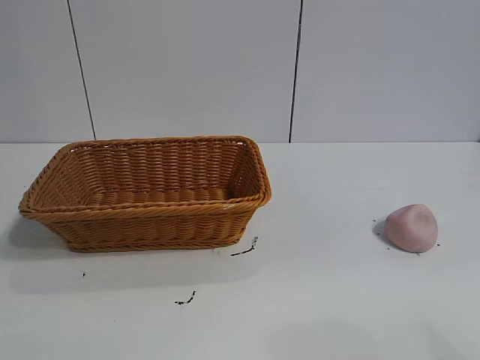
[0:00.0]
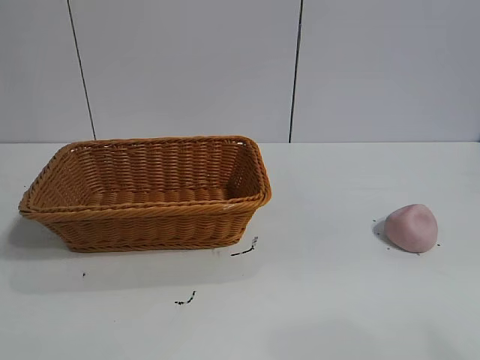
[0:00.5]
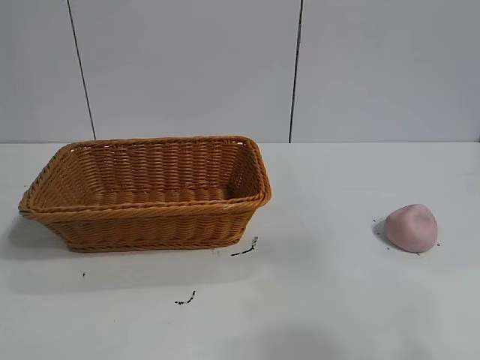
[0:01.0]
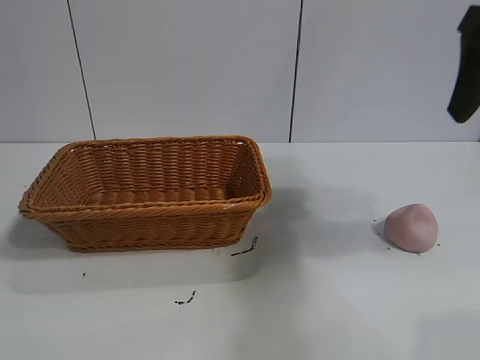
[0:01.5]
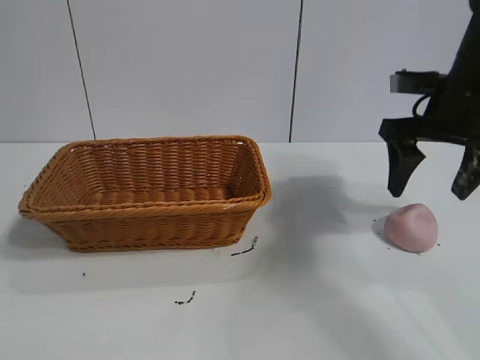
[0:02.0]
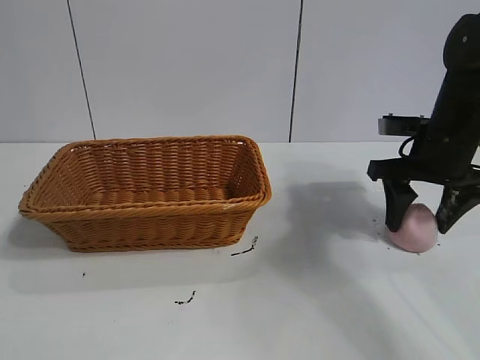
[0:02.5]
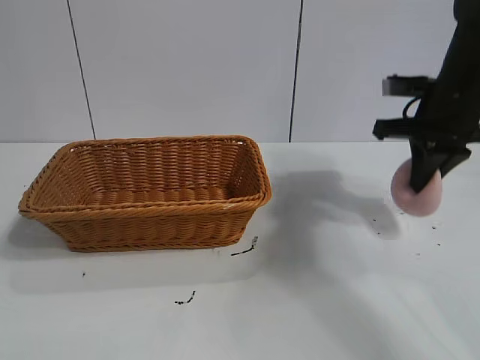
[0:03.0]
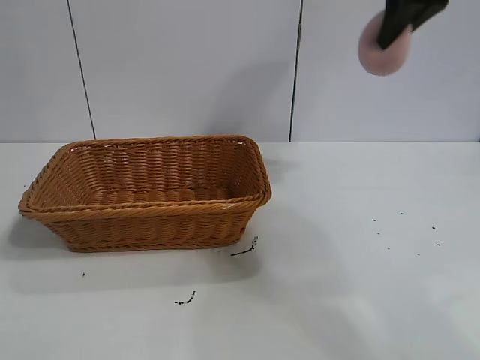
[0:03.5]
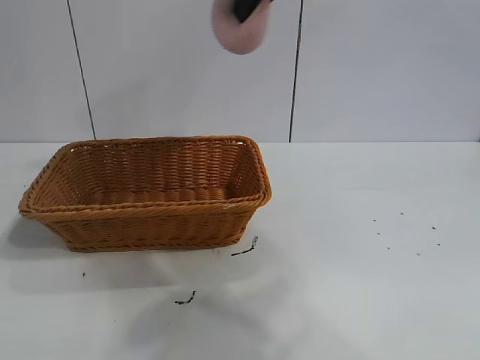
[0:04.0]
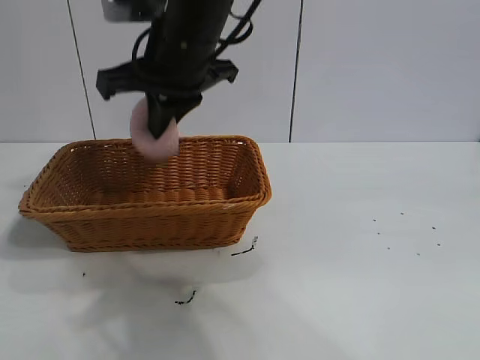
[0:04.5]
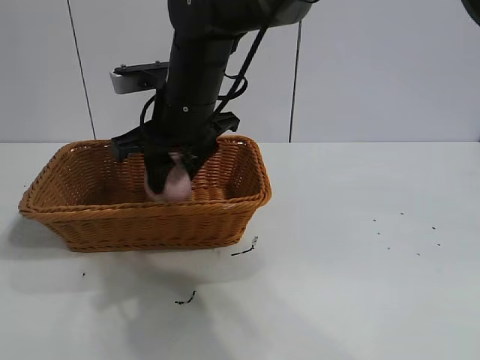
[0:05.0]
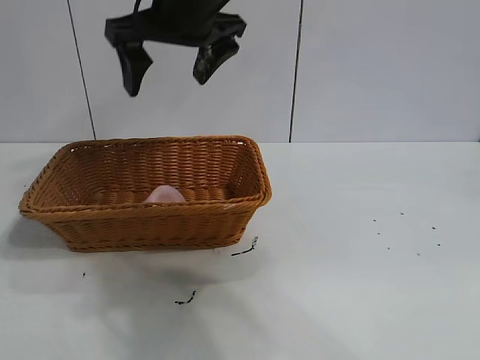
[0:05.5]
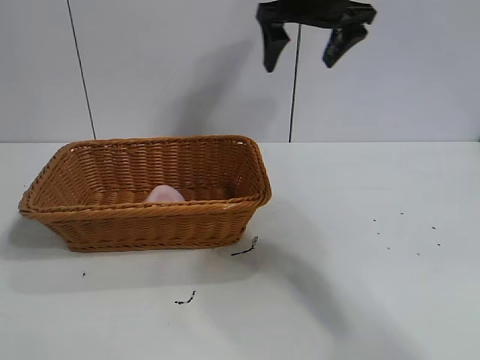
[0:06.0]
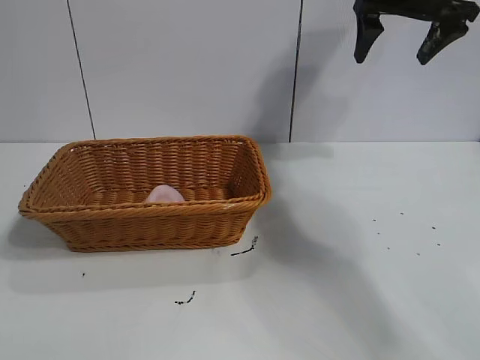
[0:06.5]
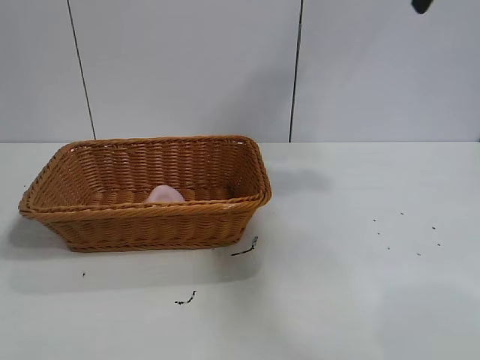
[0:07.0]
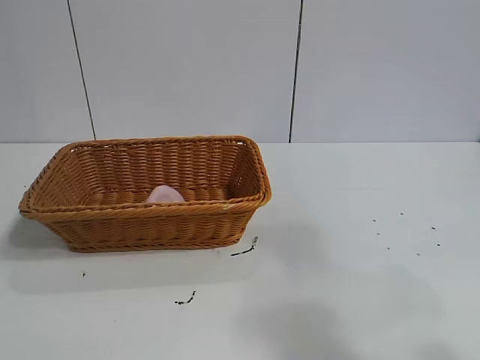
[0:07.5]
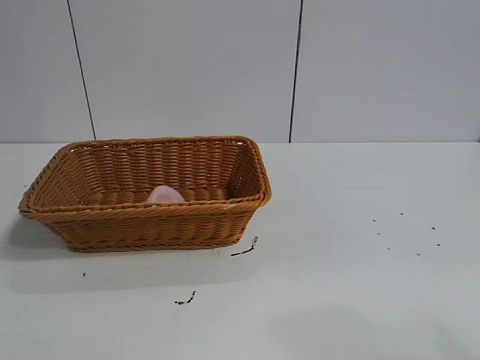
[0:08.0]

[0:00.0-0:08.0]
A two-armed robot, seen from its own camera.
Task of the whole recording: pick up the peach and put it into the basket.
Step, 0:01.0 to 0:02.5: Grasp the peach with right gripper.
Step, 0:03.0 to 0:05.5: Place the peach in the basket with right gripper.

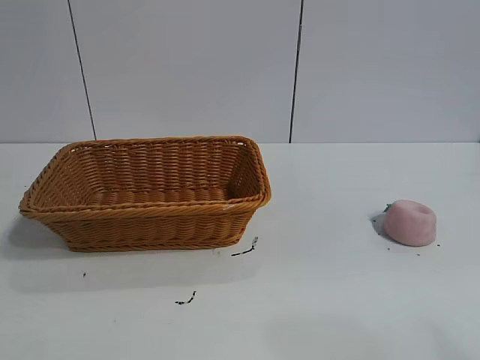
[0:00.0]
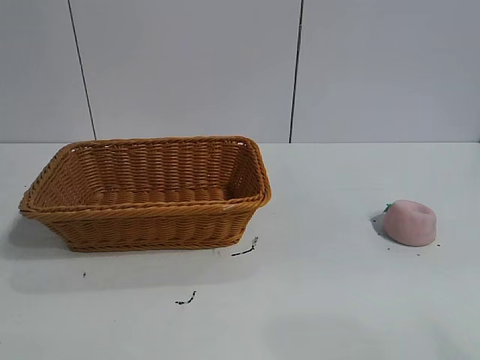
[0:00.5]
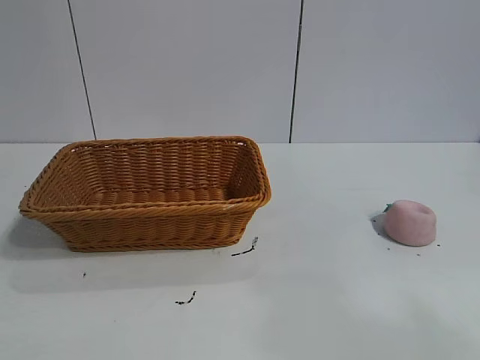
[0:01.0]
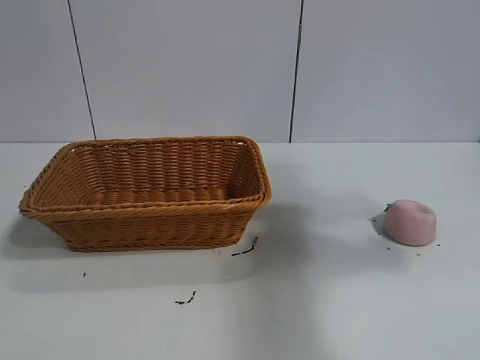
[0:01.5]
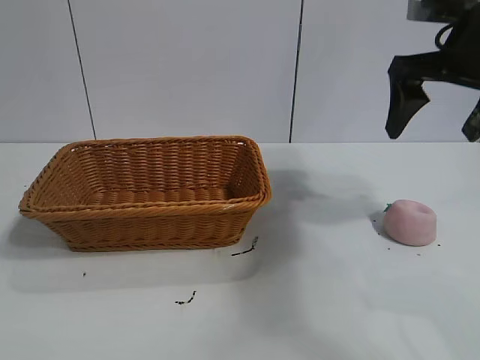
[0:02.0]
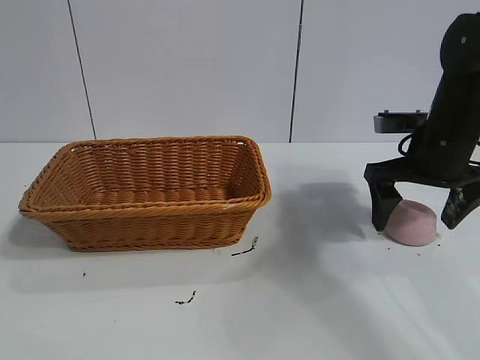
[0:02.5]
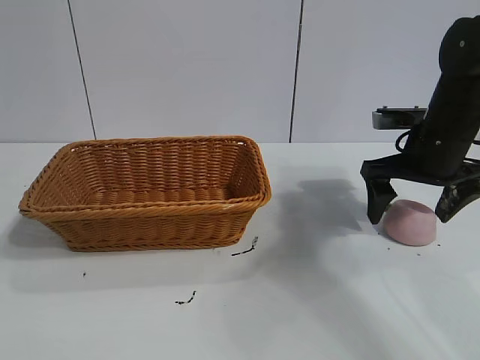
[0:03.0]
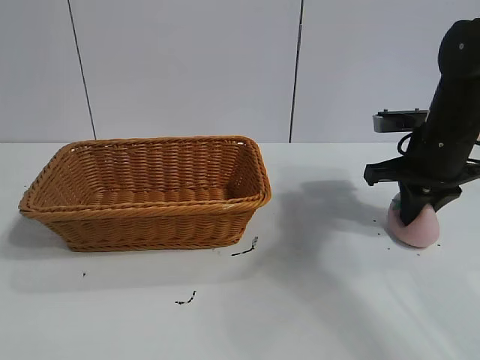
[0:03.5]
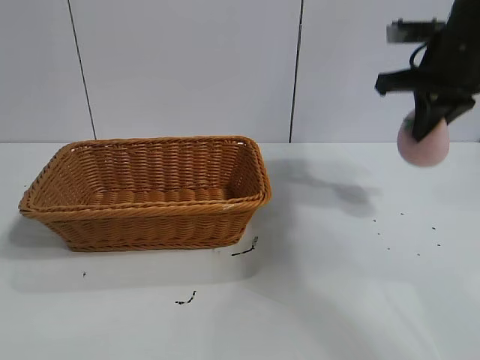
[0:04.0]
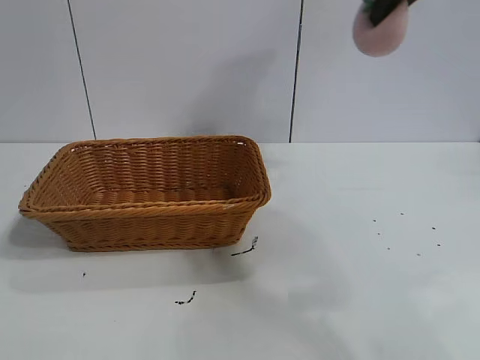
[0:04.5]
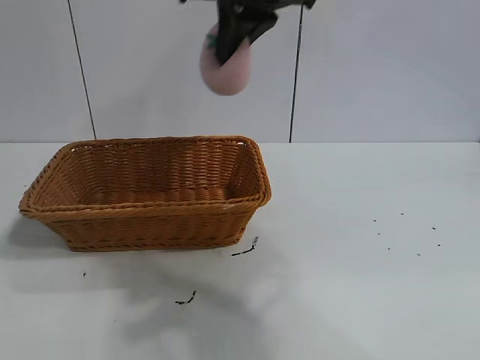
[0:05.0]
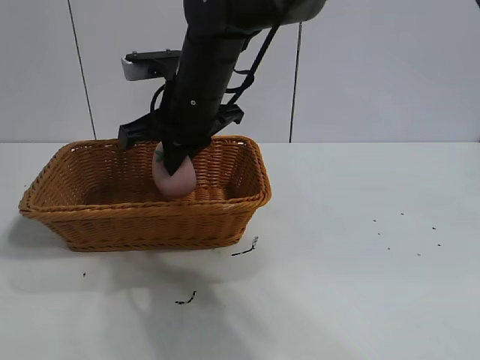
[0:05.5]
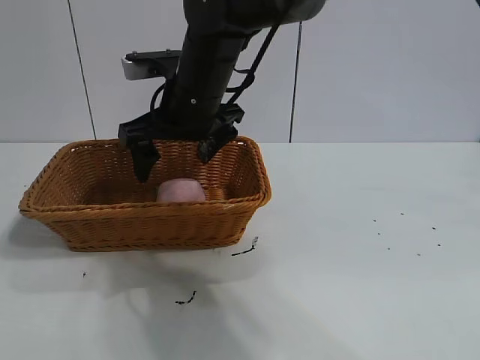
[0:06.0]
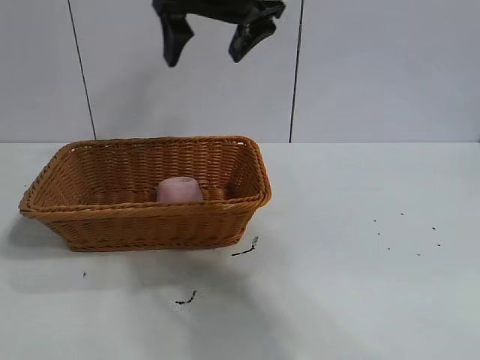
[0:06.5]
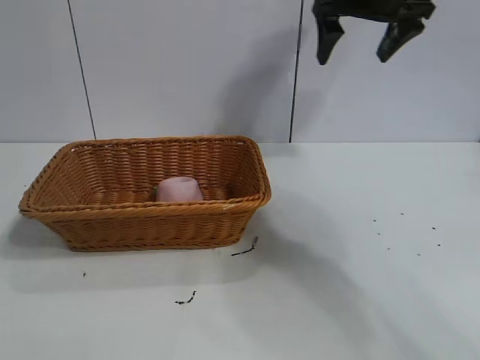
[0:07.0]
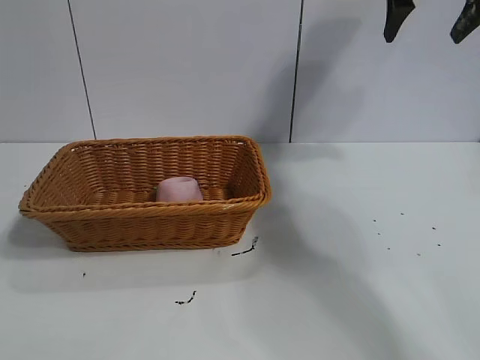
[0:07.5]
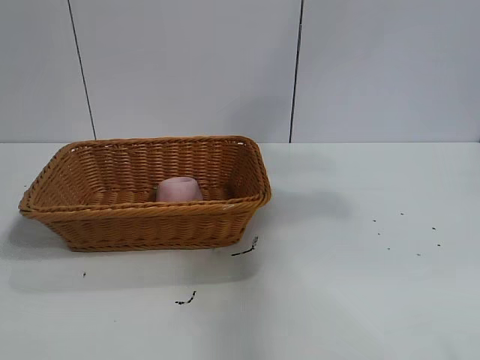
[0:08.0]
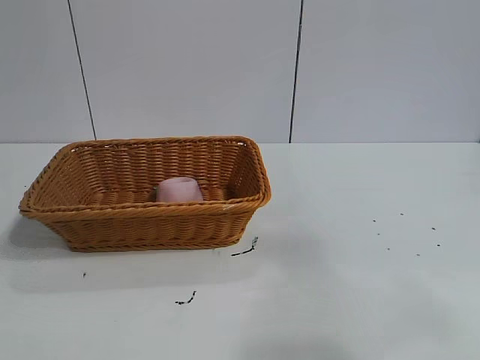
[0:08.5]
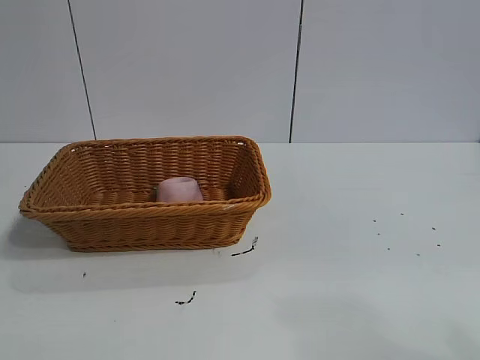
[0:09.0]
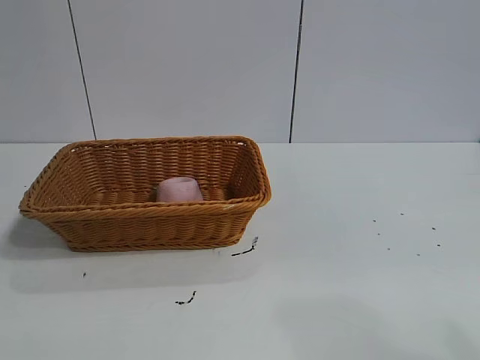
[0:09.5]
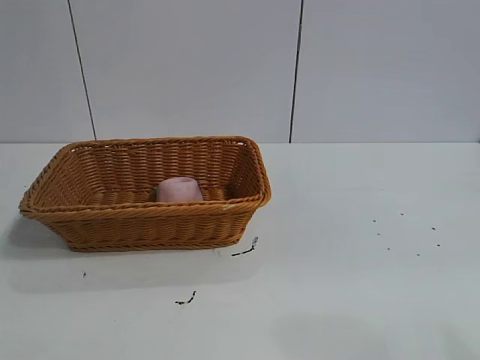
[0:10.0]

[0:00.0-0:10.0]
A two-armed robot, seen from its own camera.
Task of the whole recording: pick up the peach and put it into the basket.
Step, 0:01.0 to 0:03.5: Grasp the peach with right gripper.
Step, 0:04.0 to 0:06.0: Place the peach in the basket with right gripper.

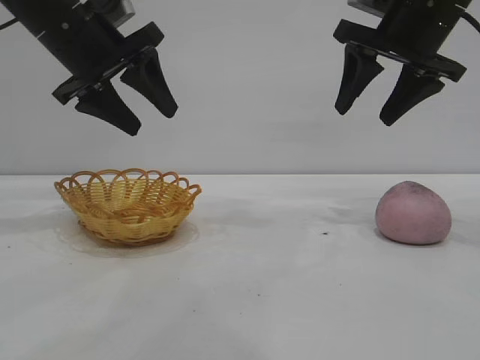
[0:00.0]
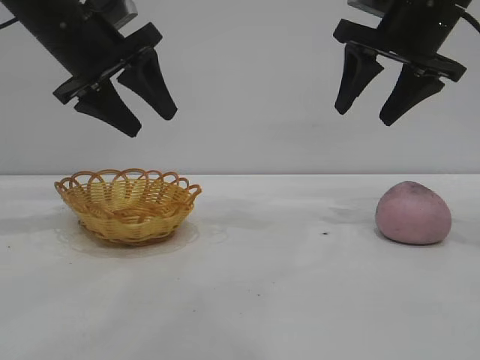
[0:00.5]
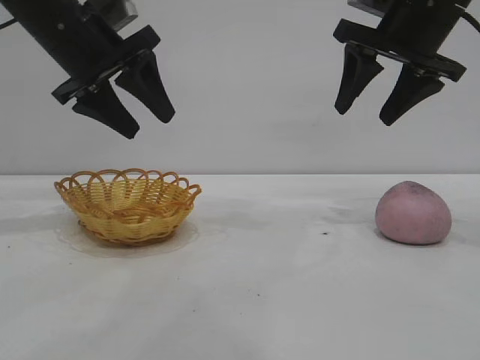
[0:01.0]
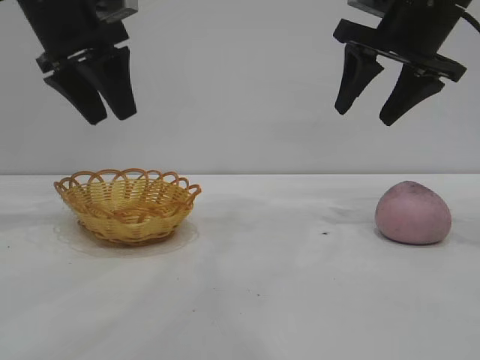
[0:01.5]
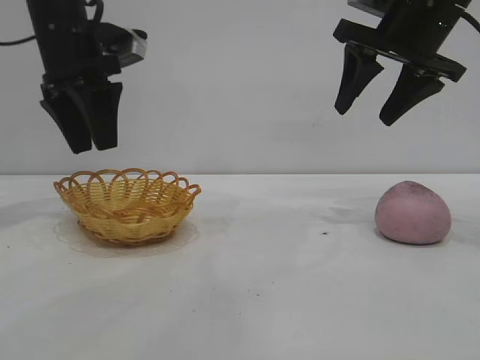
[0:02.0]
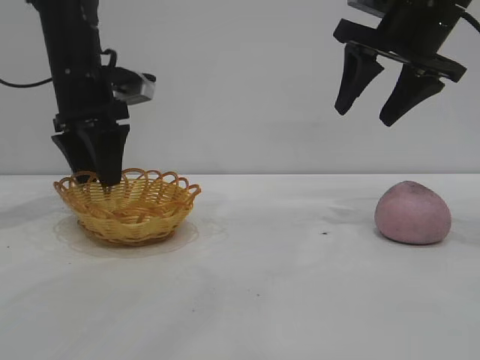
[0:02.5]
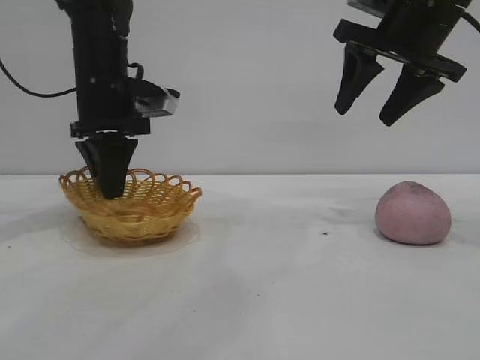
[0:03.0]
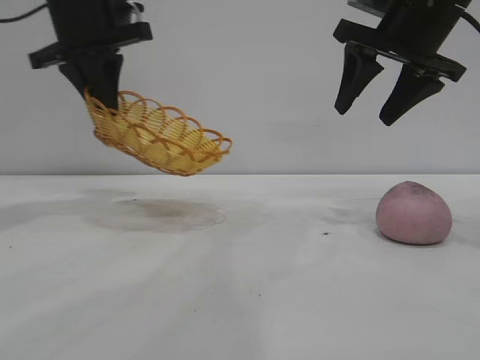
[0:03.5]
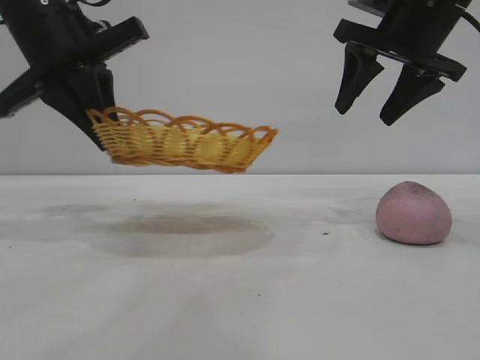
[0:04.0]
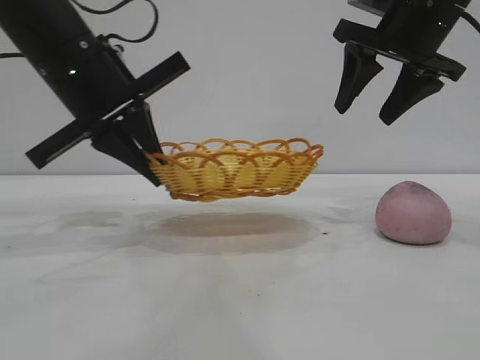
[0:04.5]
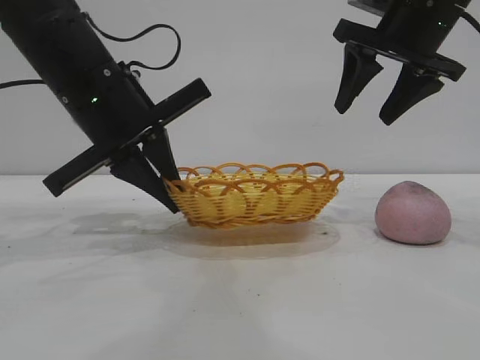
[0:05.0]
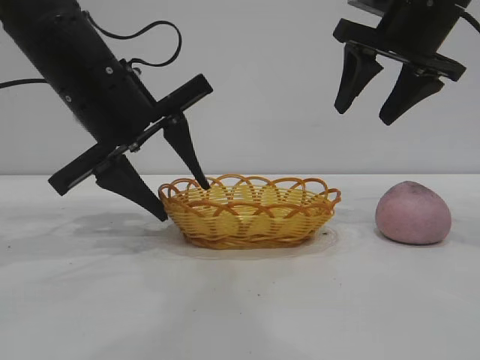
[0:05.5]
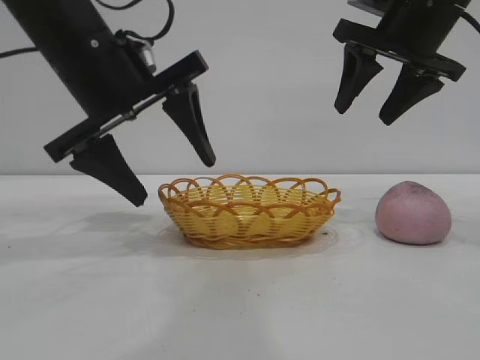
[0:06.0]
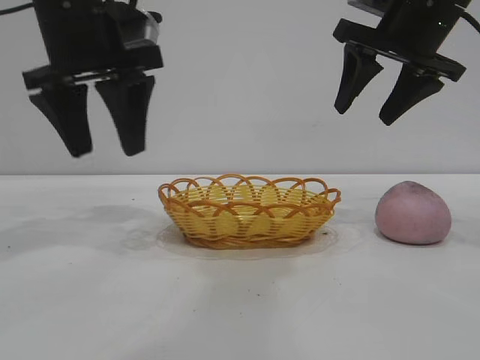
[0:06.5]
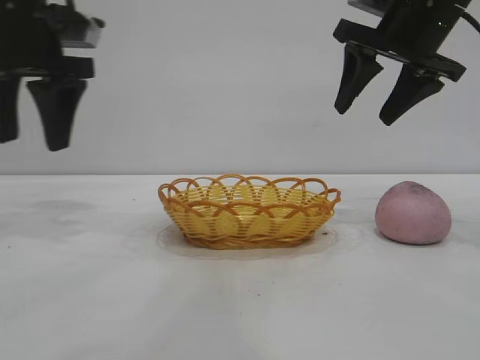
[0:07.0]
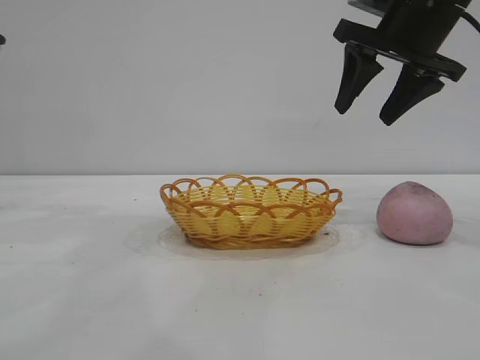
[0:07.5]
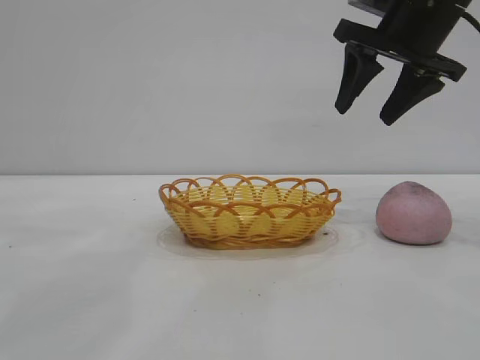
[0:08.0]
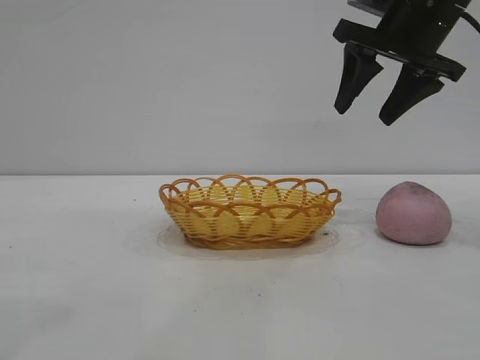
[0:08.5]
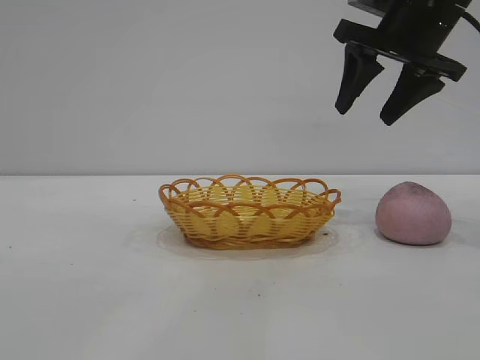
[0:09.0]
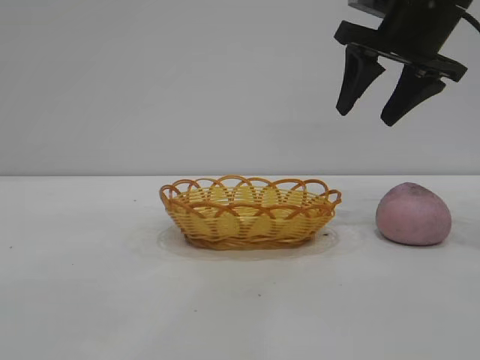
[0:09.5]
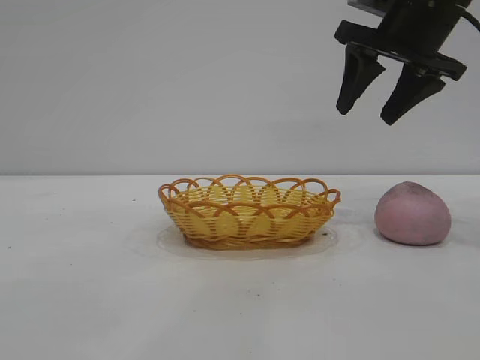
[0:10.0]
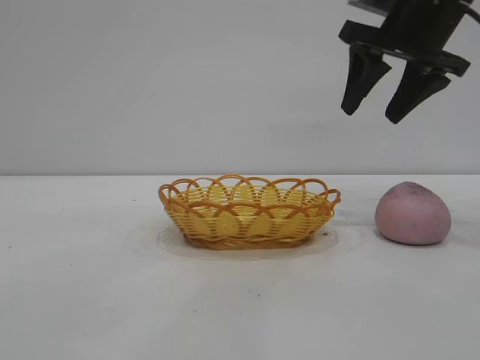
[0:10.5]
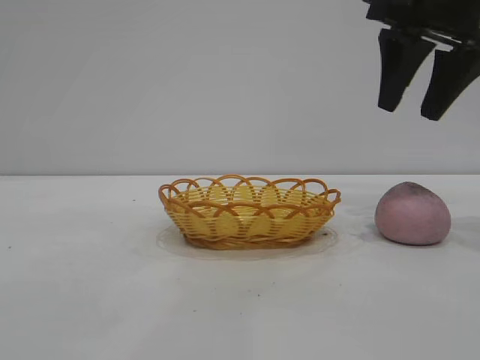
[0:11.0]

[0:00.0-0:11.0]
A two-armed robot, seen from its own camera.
Task of the whole recording: pick up the peach and put it into the basket.
Step, 0:00.0 to 0:06.0: Move the basket to the center of view.
